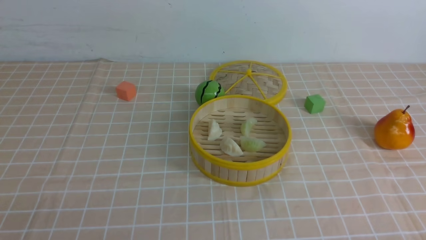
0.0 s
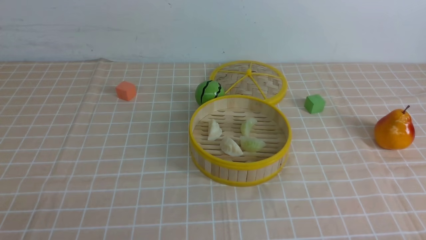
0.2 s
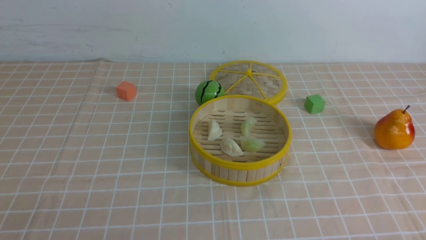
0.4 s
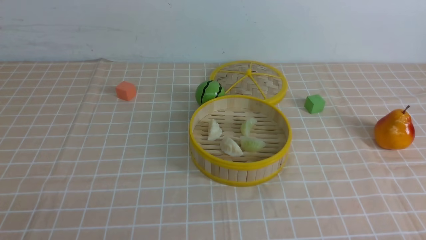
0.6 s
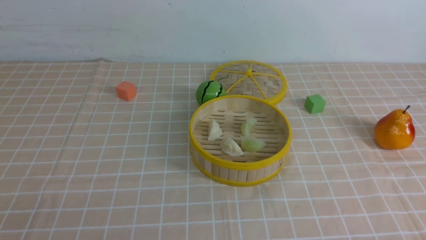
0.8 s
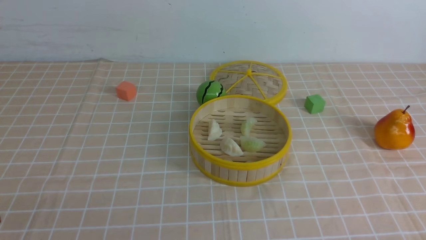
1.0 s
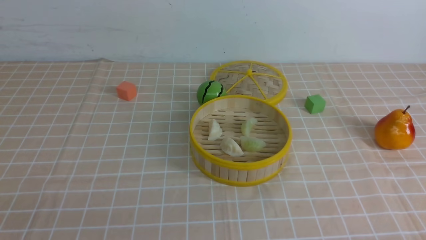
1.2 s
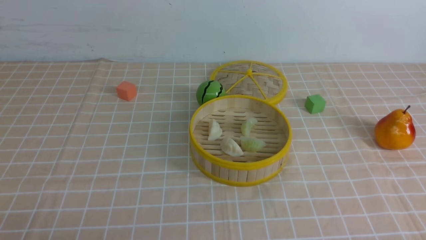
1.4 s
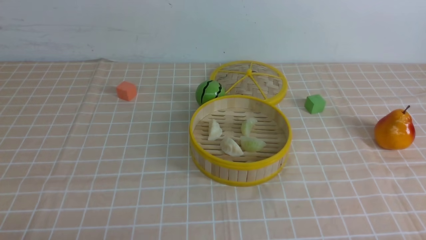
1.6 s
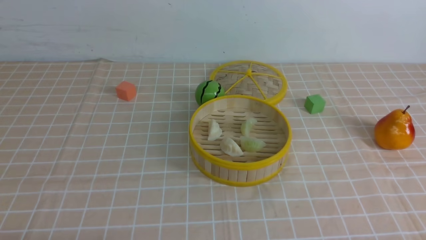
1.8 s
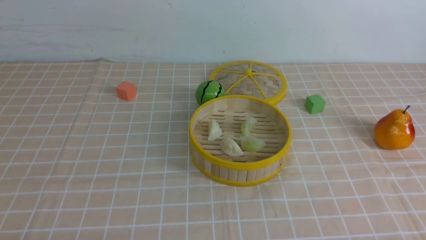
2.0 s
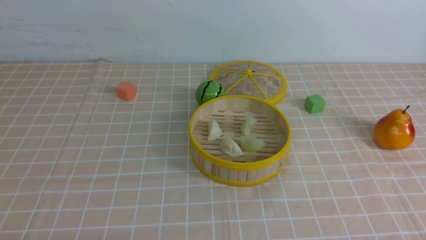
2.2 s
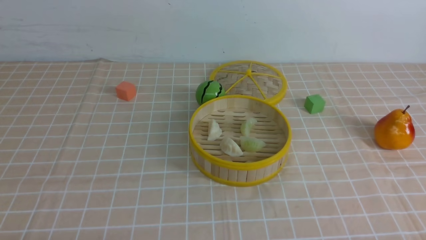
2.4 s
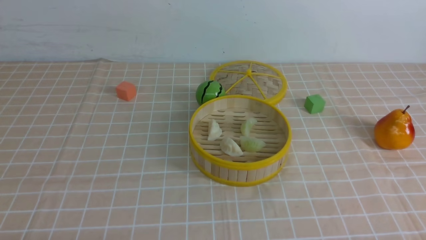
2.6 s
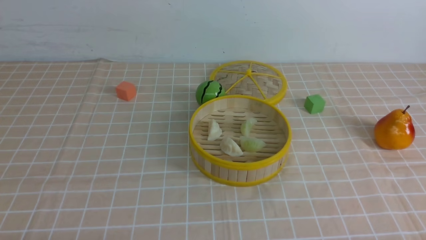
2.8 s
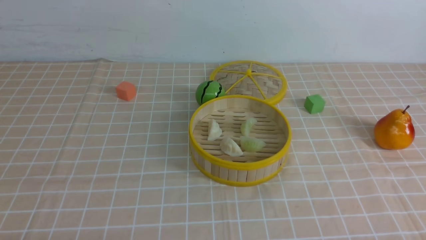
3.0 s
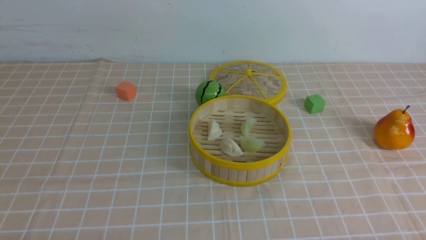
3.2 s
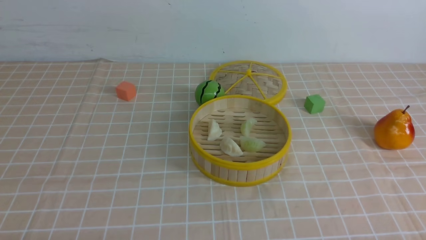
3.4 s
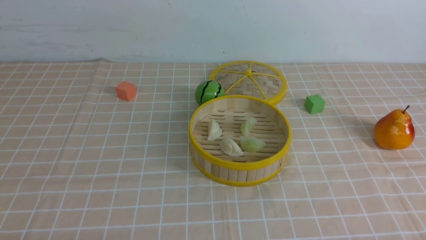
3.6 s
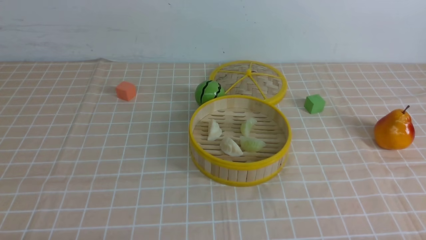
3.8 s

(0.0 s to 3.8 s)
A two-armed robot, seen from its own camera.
Task of the whole recording: put the dumplings into the steamer on the table with the brown tablecloth.
2.6 s - 3.8 s: The two grippers keep their place.
